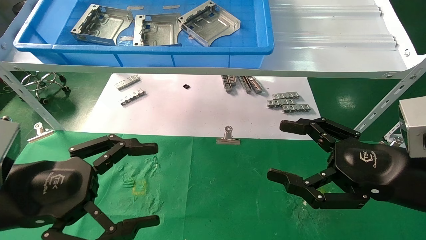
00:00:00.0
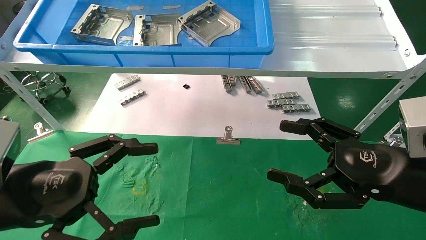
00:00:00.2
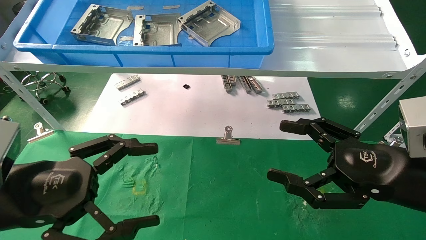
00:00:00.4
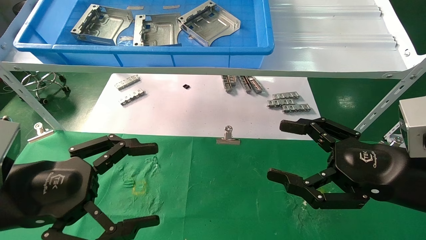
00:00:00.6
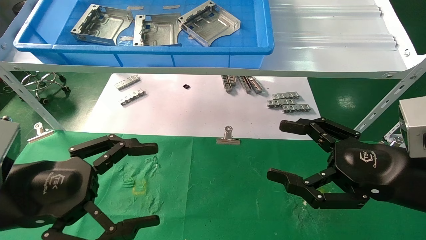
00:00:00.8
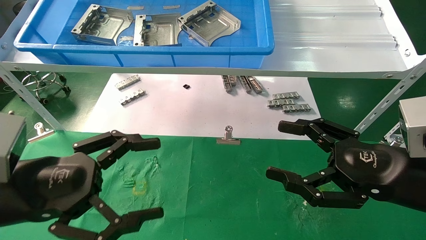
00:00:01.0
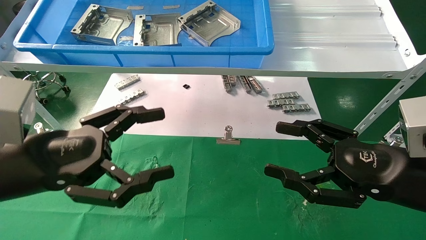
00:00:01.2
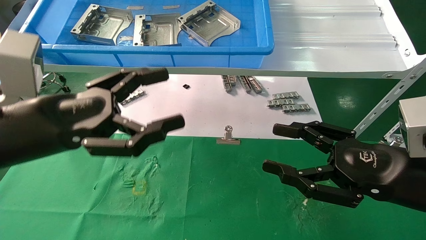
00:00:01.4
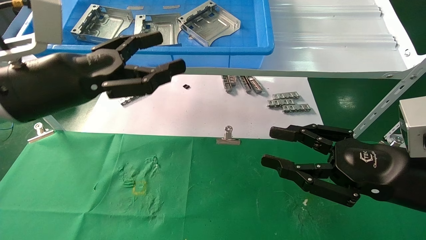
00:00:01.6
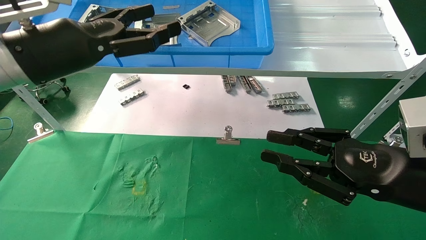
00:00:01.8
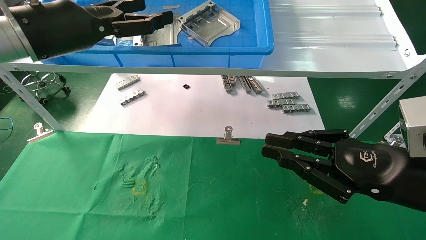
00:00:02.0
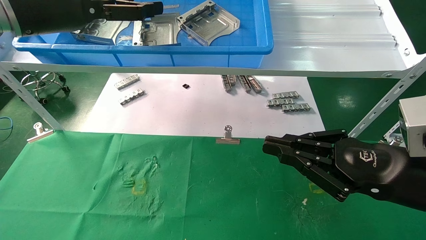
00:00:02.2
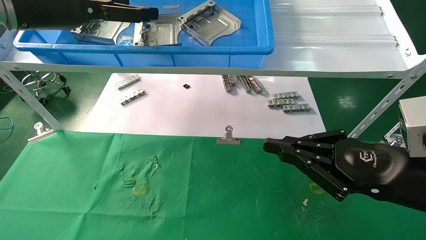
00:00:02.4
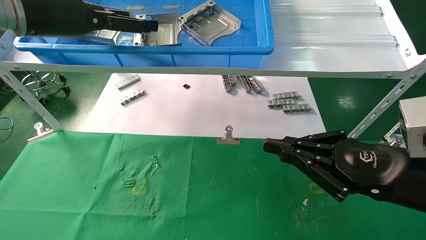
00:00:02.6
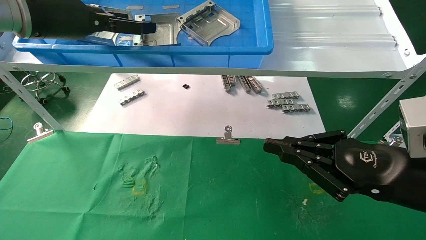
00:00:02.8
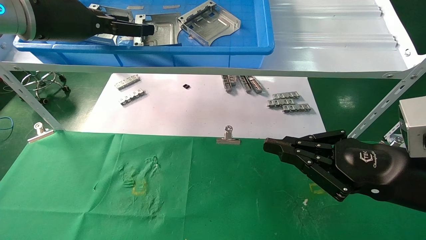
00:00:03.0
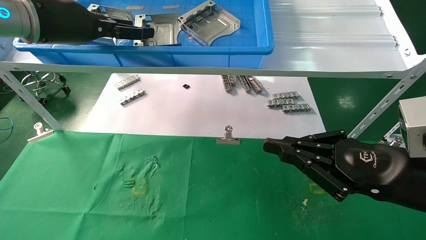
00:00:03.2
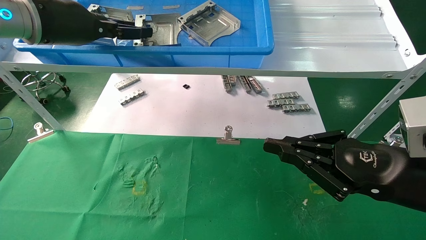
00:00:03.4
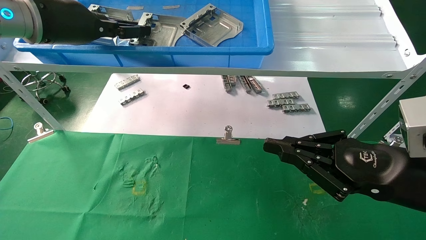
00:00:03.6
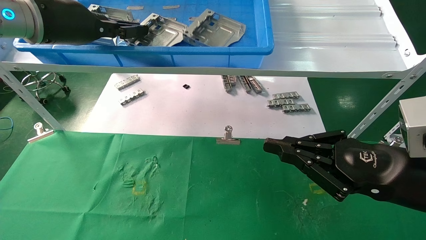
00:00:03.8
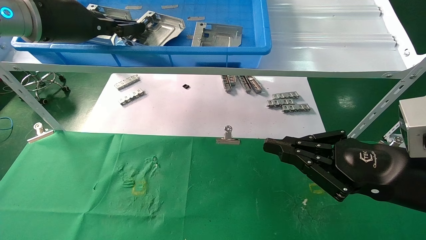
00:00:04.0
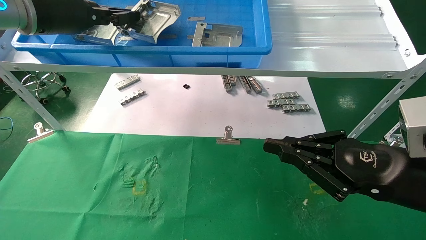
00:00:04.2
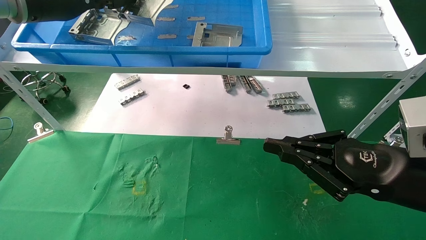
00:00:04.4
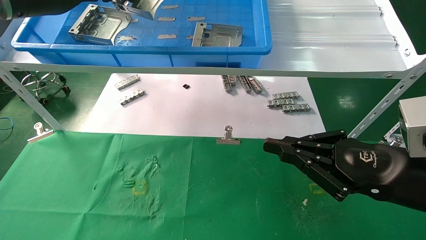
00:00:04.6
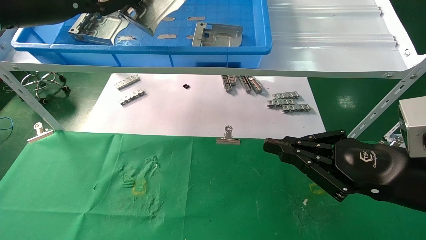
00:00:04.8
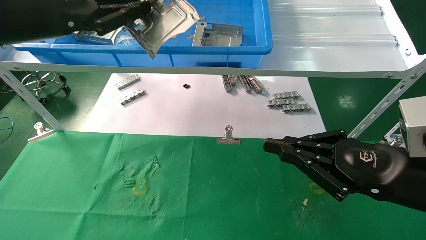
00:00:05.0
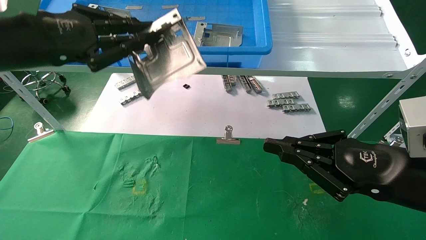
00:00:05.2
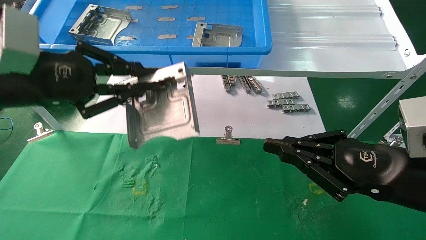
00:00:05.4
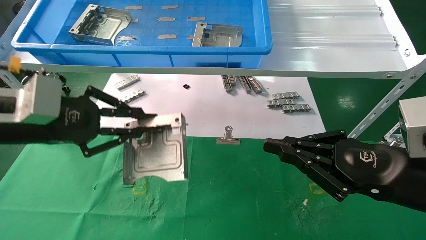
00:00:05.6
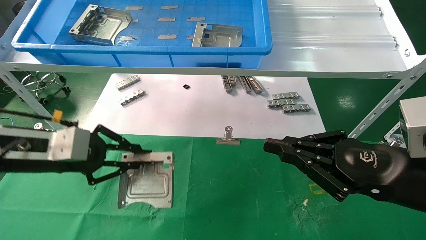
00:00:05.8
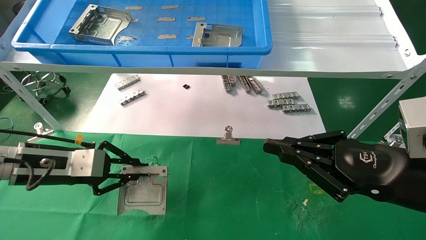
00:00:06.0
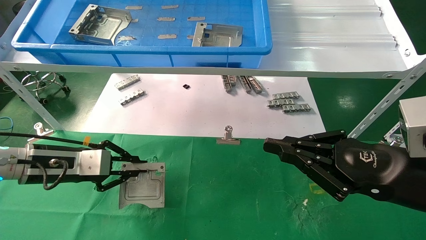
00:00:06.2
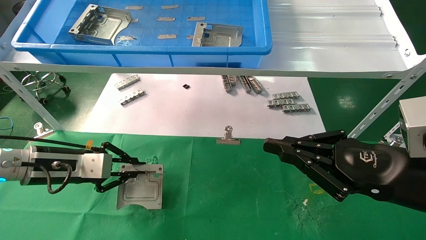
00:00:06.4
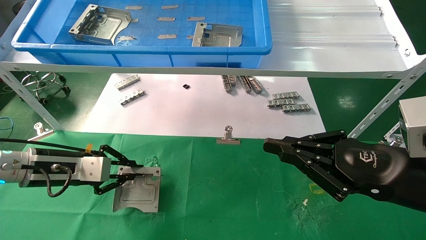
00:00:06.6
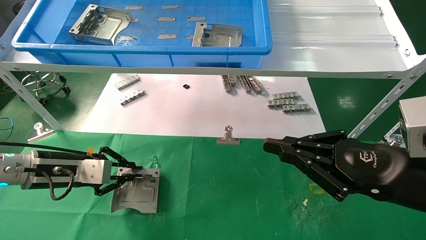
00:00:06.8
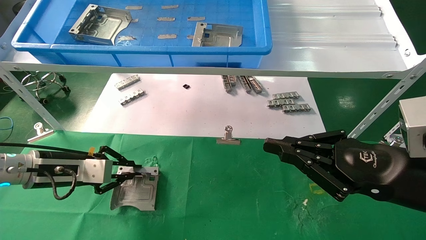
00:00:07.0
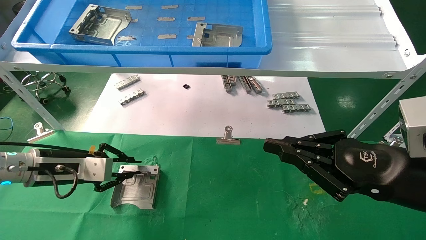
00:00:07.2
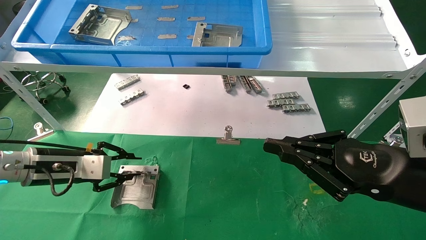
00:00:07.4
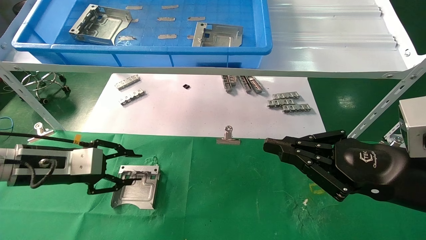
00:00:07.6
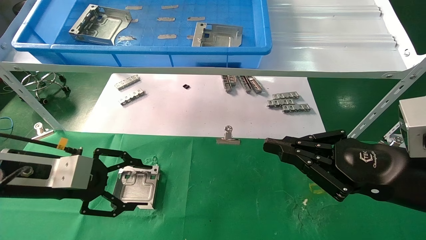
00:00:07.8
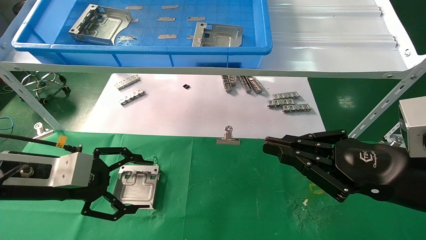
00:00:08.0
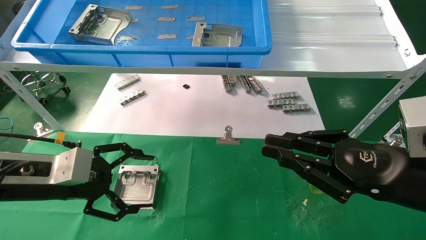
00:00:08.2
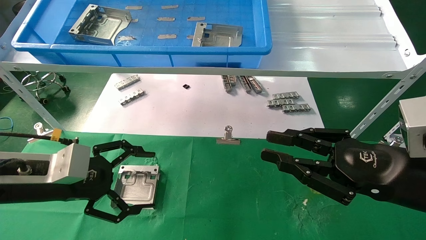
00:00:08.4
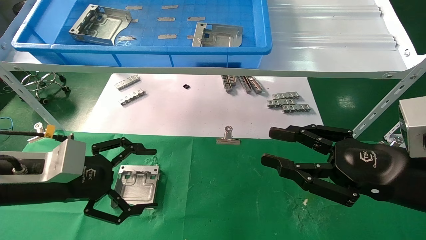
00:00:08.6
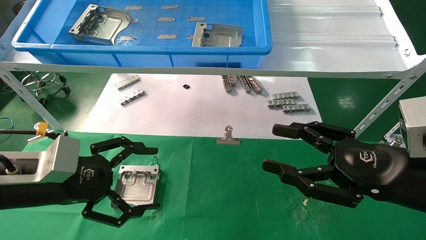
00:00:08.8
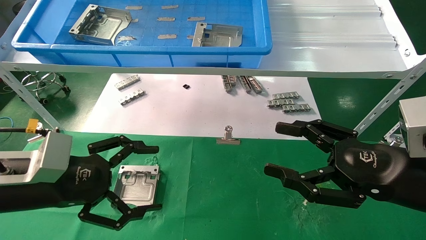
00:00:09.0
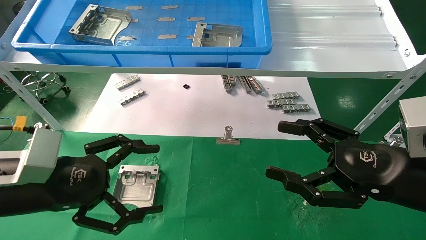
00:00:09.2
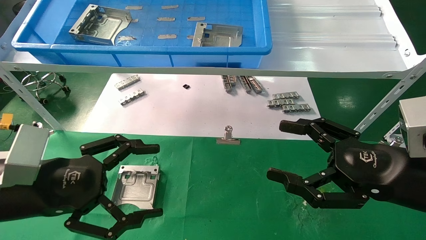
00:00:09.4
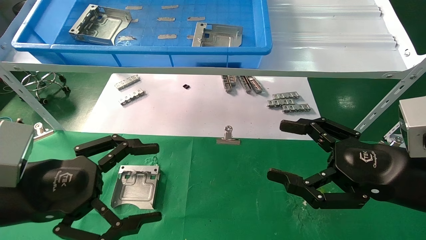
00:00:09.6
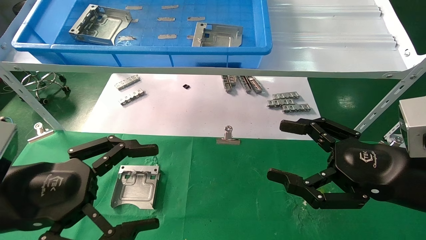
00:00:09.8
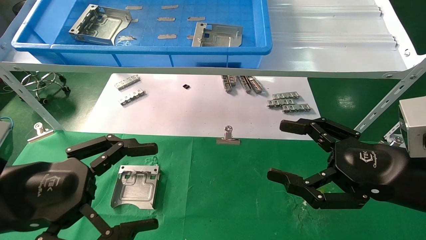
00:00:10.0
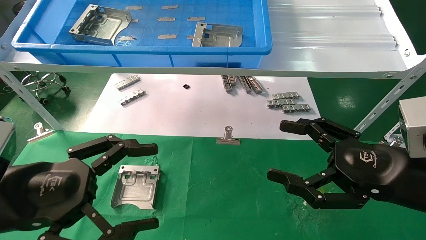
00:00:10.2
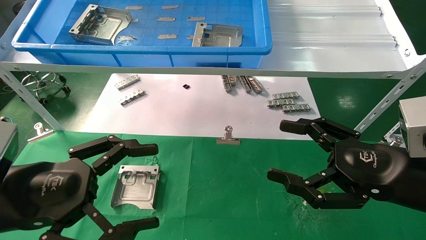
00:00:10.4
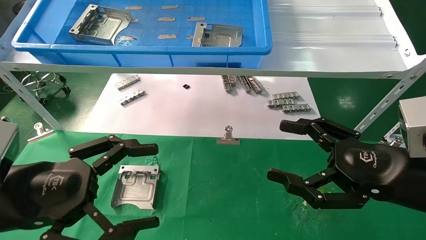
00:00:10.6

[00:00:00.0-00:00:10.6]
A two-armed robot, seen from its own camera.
Task of the whole recording: use the mechanical arm to pick up the parts and place them on the table.
Step, 00:00:01.2 to 00:00:03.8: Pick up the hard drive bracket from the feeding area.
Step, 00:00:04.0 to 00:00:07.0: Place the hard drive bracket into the box.
00:00:00.0 to 00:00:01.6: The left gripper travels upward and forward by approximately 15 cm; the right gripper closes.
00:00:01.6 to 00:00:03.0: The left gripper goes some 15 cm upward and forward. Meanwhile the right gripper closes up.
00:00:03.0 to 00:00:04.6: The left gripper closes its fingers.
00:00:04.6 to 00:00:06.0: The left gripper is displaced downward by approximately 25 cm.
00:00:06.0 to 00:00:07.6: The grippers move only a little.
00:00:07.6 to 00:00:09.0: The right gripper opens its fingers; the left gripper moves backward, about 10 cm, and opens up.
00:00:09.0 to 00:00:10.6: The left gripper heads backward, covering roughly 5 cm.

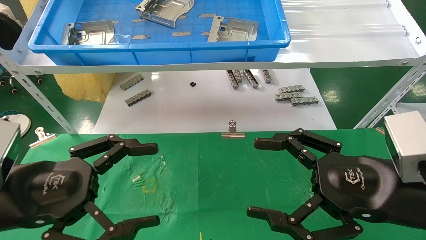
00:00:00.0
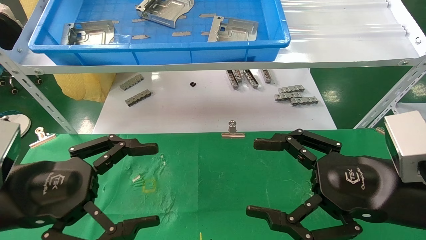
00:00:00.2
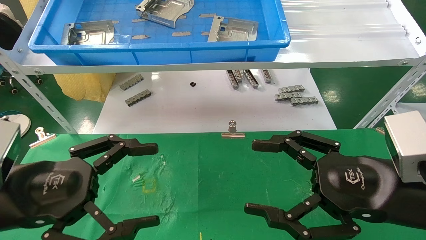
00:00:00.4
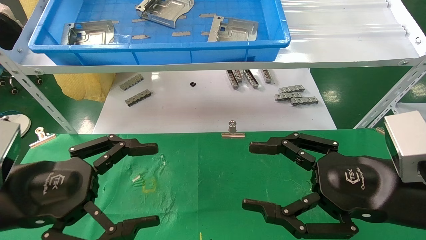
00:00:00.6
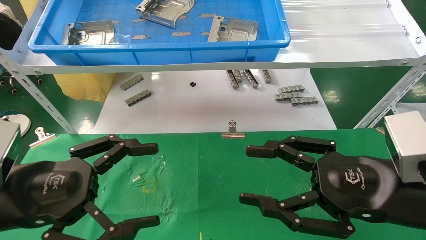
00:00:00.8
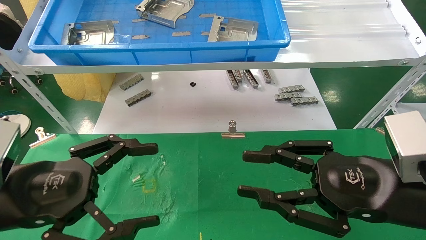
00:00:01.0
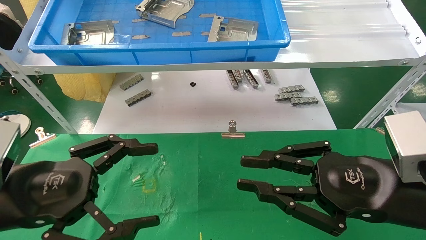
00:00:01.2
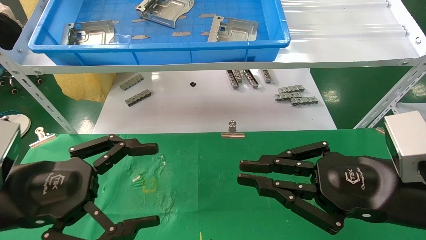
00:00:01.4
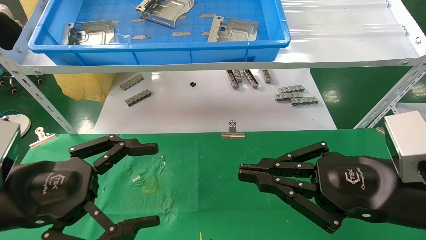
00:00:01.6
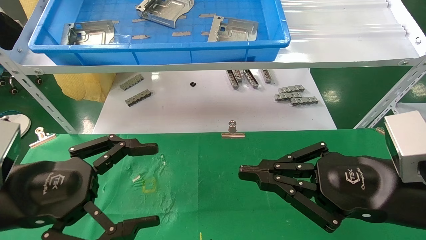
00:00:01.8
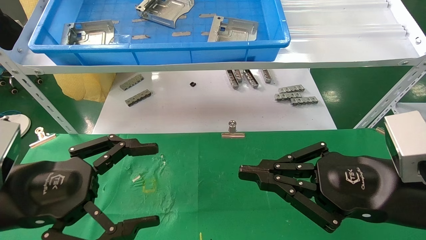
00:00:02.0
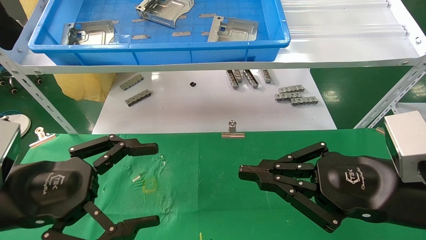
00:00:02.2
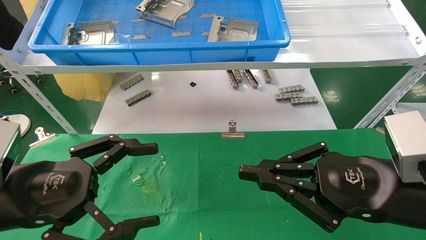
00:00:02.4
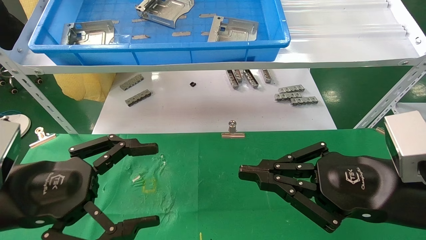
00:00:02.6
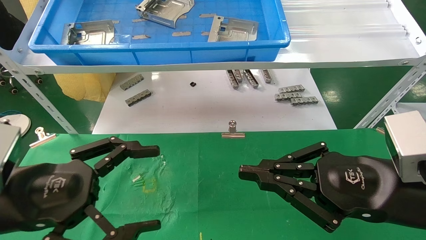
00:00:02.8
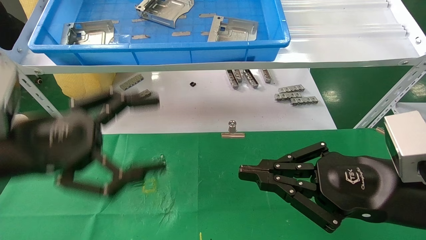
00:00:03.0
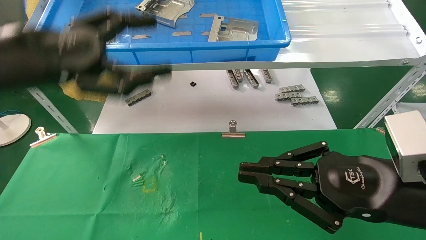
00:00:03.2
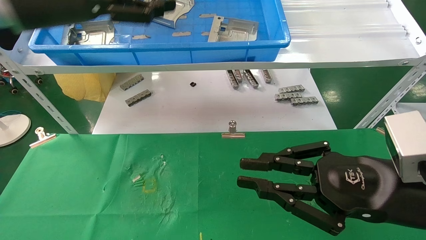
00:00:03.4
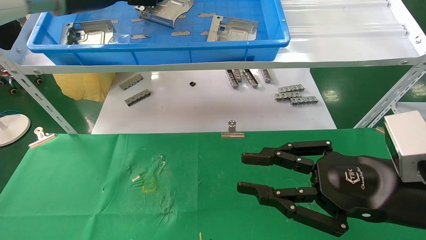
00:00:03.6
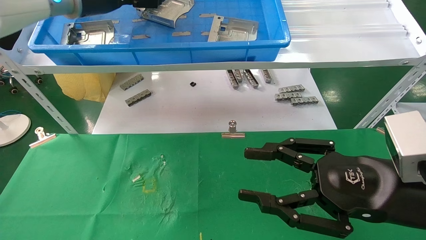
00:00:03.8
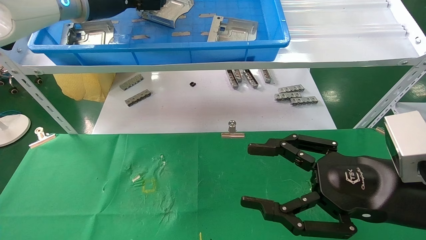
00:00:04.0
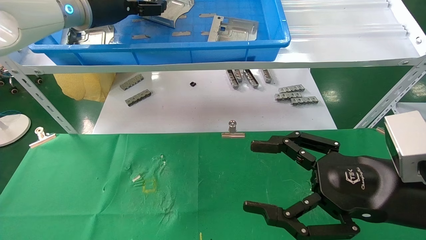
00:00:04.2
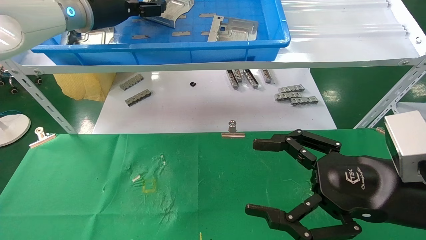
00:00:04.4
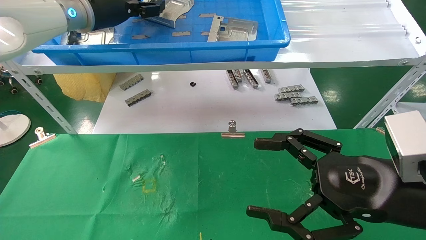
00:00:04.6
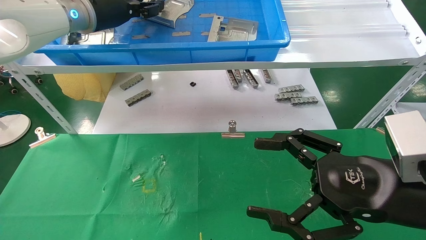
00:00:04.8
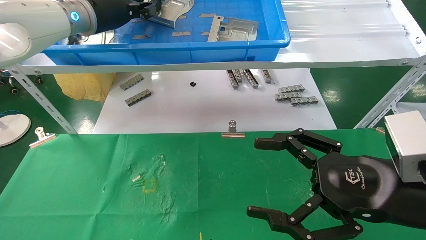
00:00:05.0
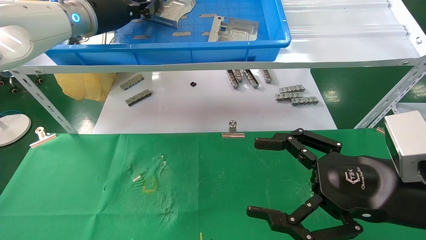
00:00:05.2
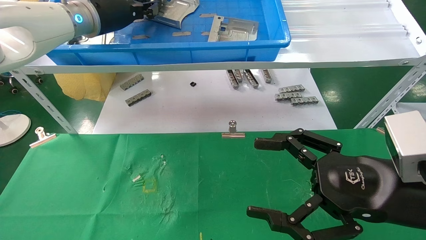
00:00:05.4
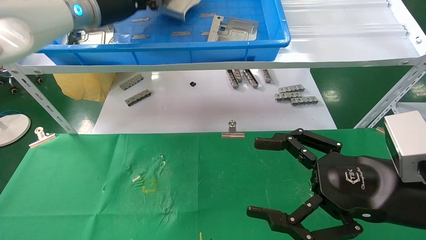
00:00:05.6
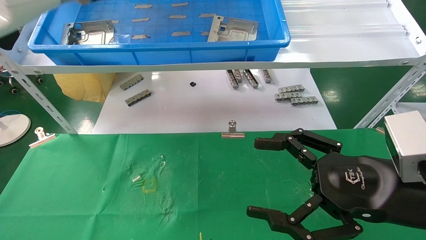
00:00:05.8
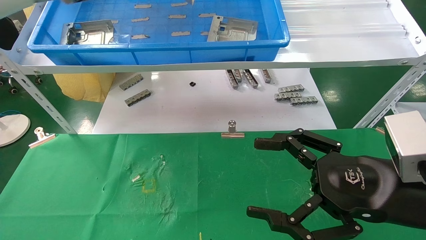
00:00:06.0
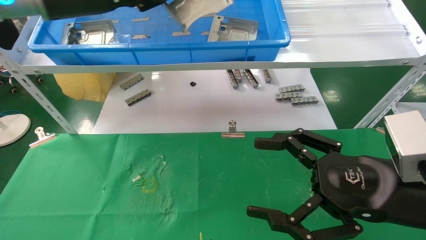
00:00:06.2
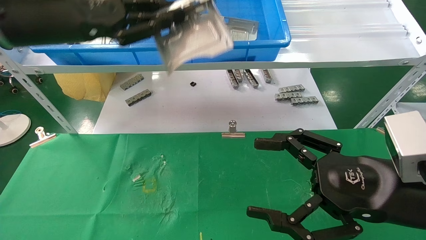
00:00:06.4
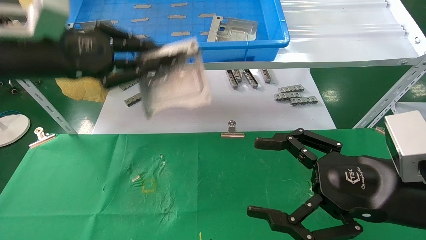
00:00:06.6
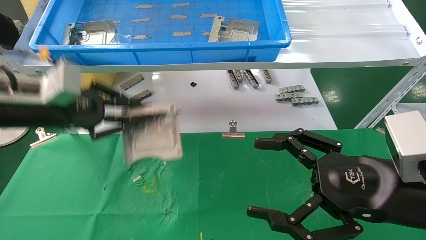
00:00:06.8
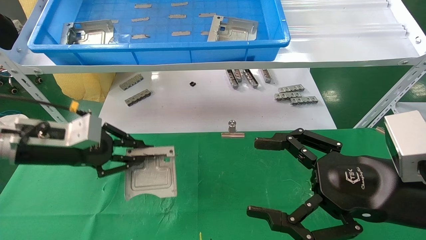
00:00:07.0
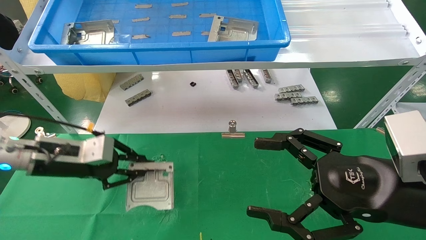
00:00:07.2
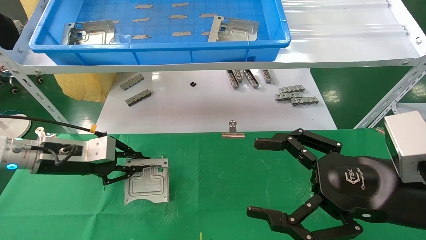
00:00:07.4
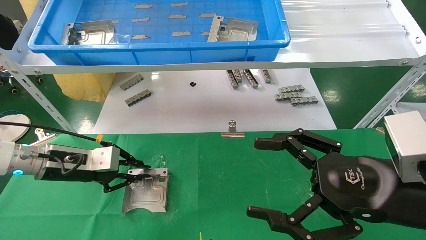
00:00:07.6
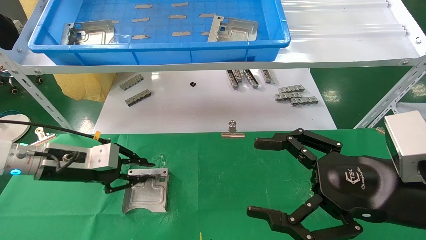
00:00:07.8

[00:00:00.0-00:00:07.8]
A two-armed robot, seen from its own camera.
Task of the whole recording: use the mechanical arm to pick up the parts and place them on the table.
Step, 00:00:03.4 to 00:00:05.0: Pick up the hard drive bracket from the feeding area.
Step, 00:00:05.2 to 00:00:07.6: Place the hard drive bracket into the box.
00:00:00.0 to 00:00:01.6: The right gripper closes.
00:00:01.6 to 00:00:03.2: The left gripper moves upward and forward, about 20 cm.
00:00:03.2 to 00:00:04.6: The right gripper opens up. The left gripper heads forward and upward, covering approximately 20 cm.
00:00:04.6 to 00:00:06.2: The left gripper shifts some 10 cm backward, and closes its fingers.
00:00:06.2 to 00:00:07.8: The left gripper moves downward, about 25 cm.
